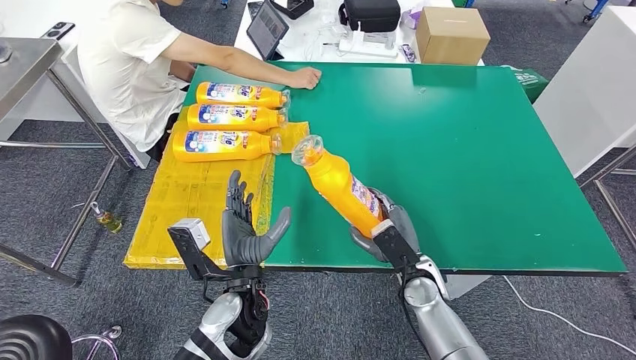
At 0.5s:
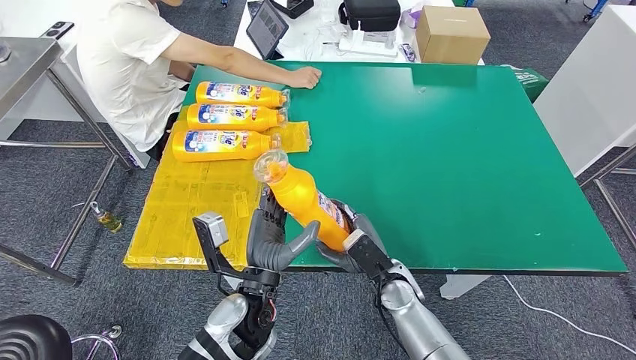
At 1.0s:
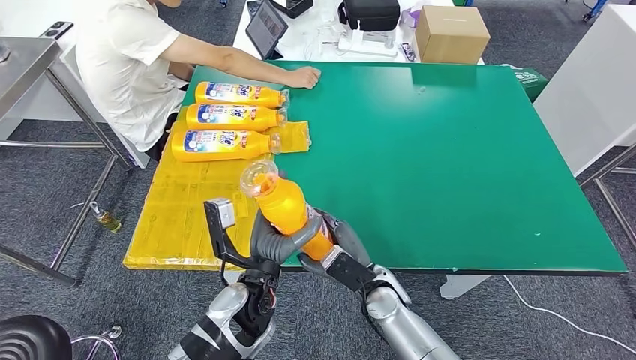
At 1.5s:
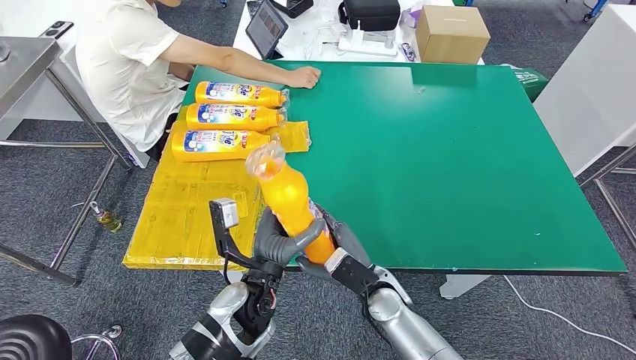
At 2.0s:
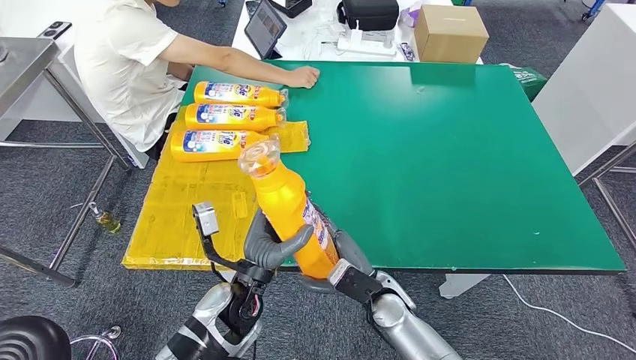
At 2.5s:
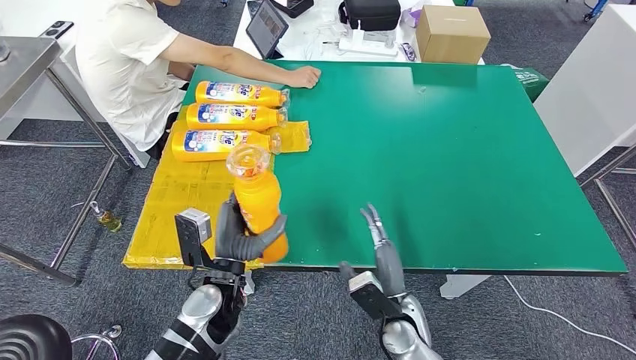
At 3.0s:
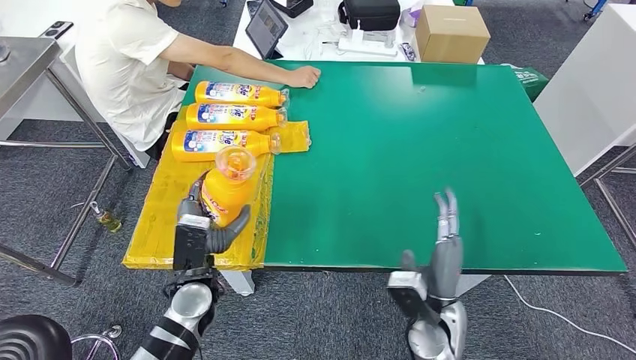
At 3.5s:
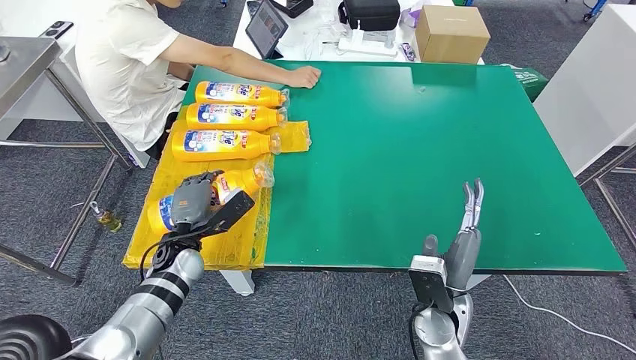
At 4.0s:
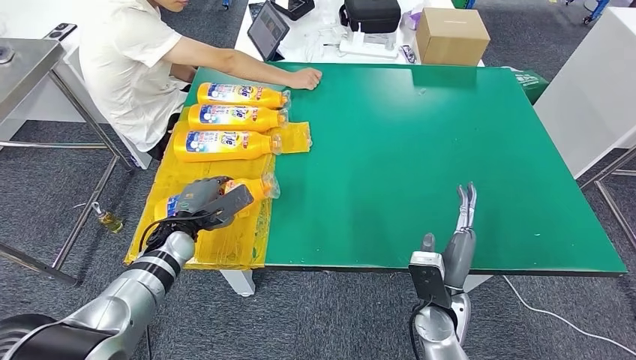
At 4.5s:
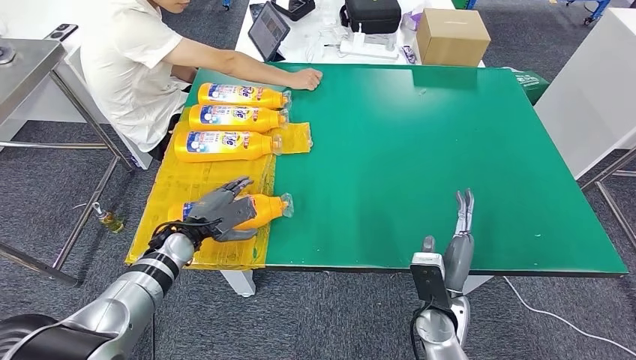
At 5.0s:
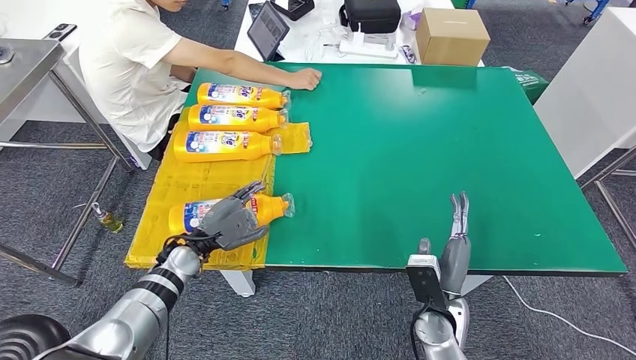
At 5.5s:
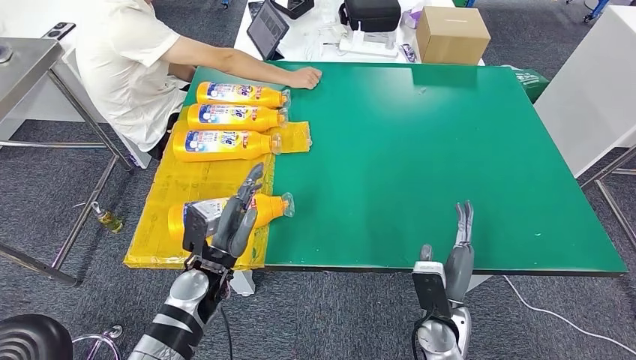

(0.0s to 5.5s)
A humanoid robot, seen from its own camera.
Step, 0.0s - 5.5s: Flip the fast-moving consumer goods bottle to the front side.
0.0s - 2.0s: The right hand shifts about 5 cm to the left.
2.0s - 3.5s: The right hand is displaced to the right and upward by approximately 10 cm; the left hand travels to the left and forward by approximately 15 cm.
3.5s - 5.5s: The left hand travels to the right and backward by roughly 10 cm.

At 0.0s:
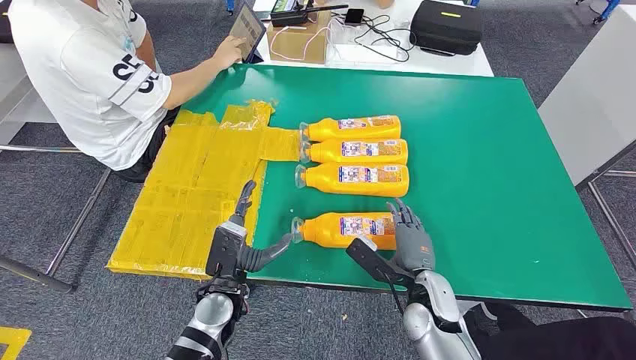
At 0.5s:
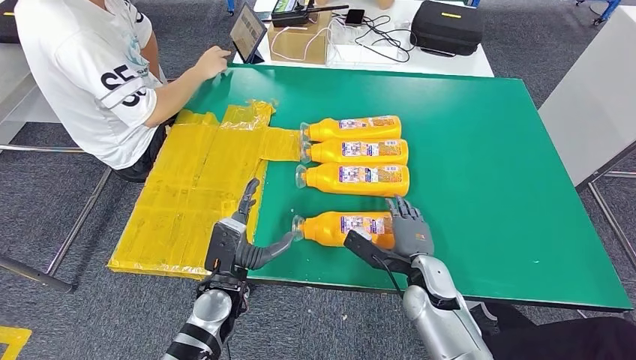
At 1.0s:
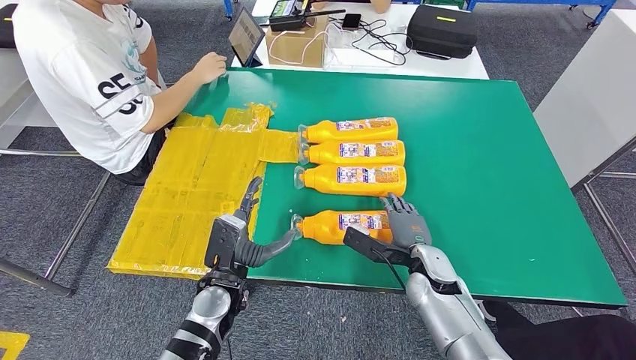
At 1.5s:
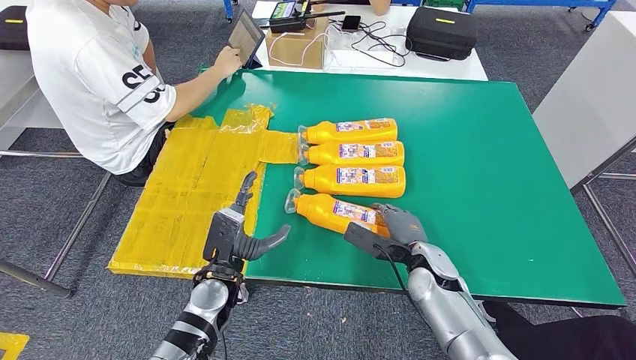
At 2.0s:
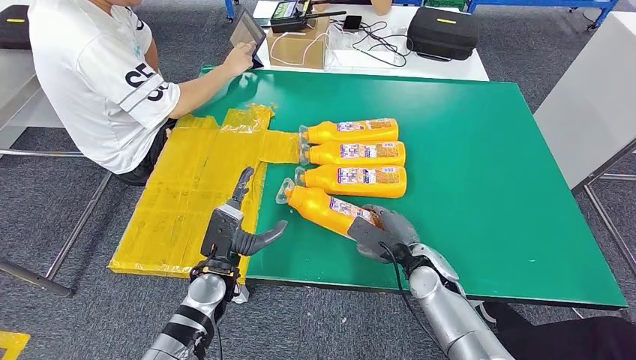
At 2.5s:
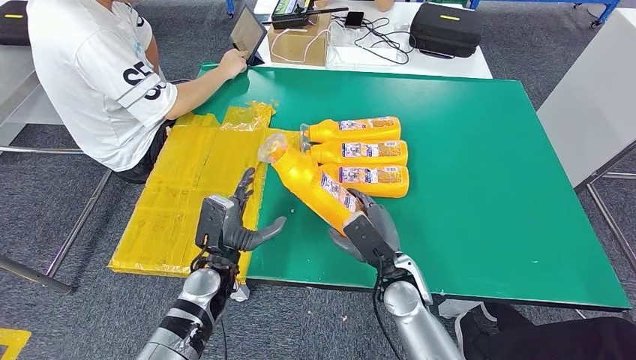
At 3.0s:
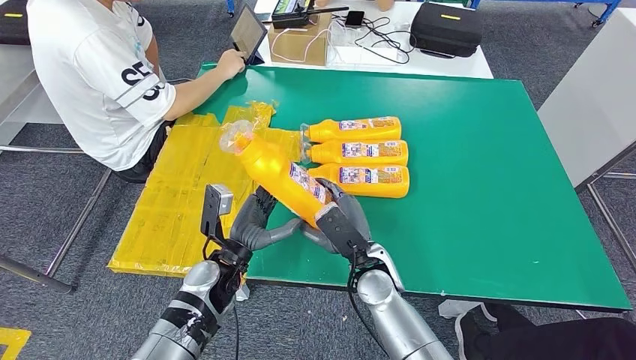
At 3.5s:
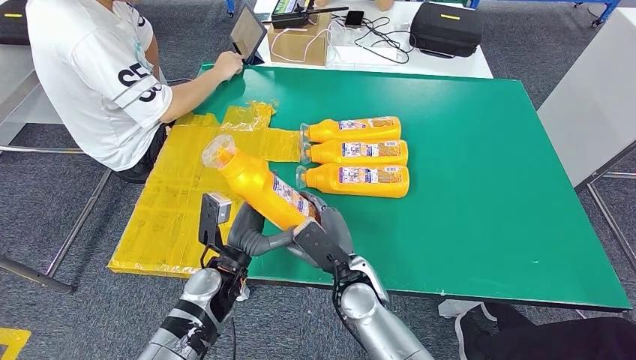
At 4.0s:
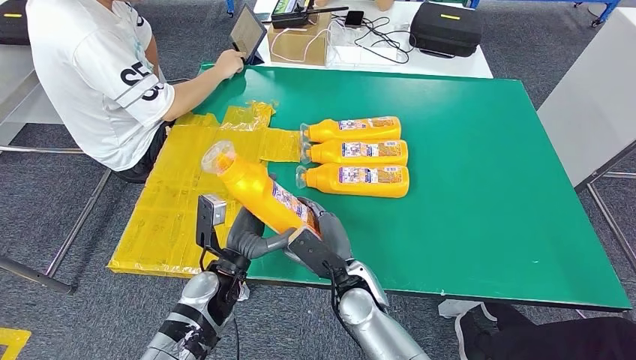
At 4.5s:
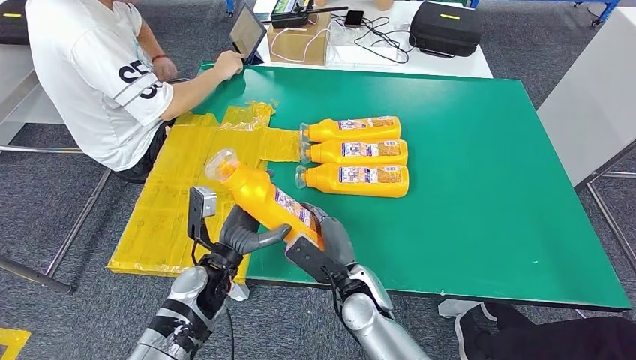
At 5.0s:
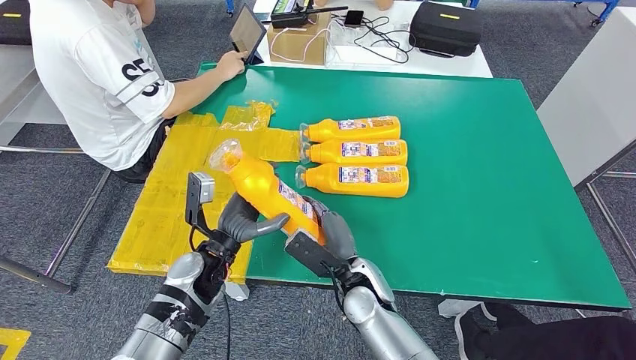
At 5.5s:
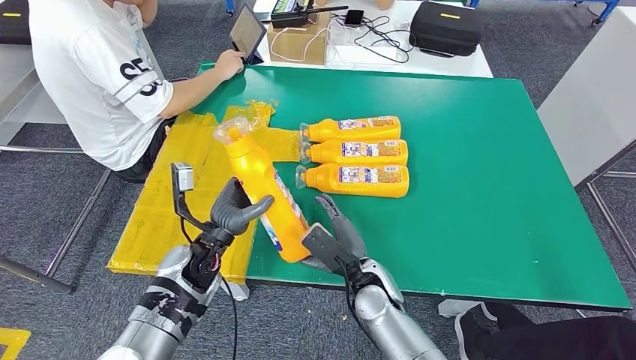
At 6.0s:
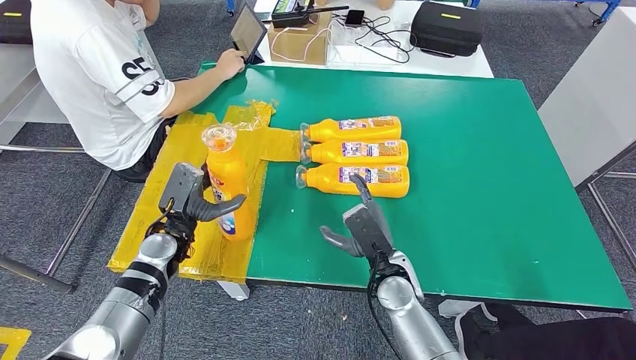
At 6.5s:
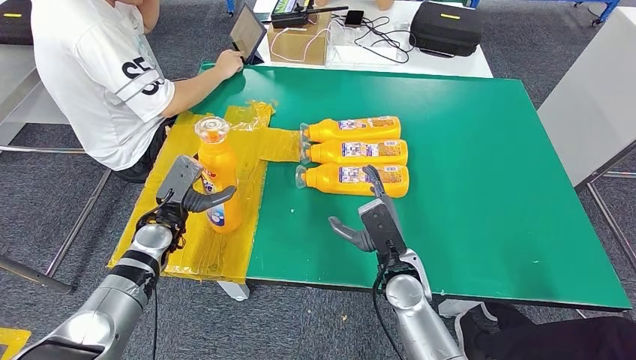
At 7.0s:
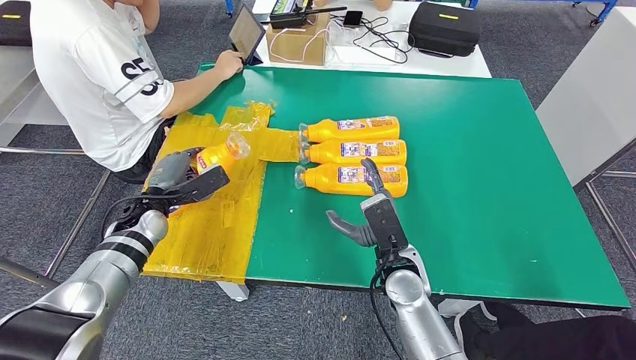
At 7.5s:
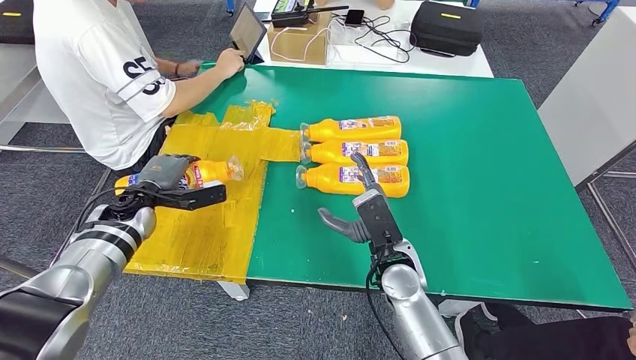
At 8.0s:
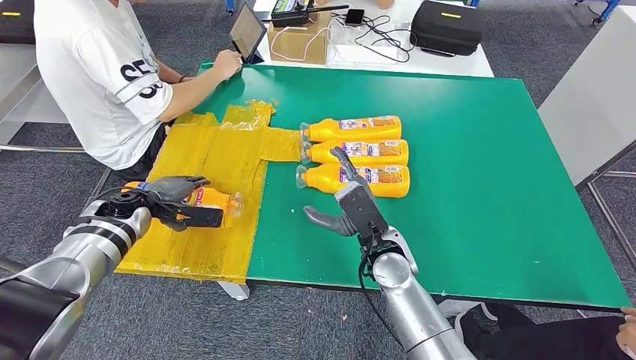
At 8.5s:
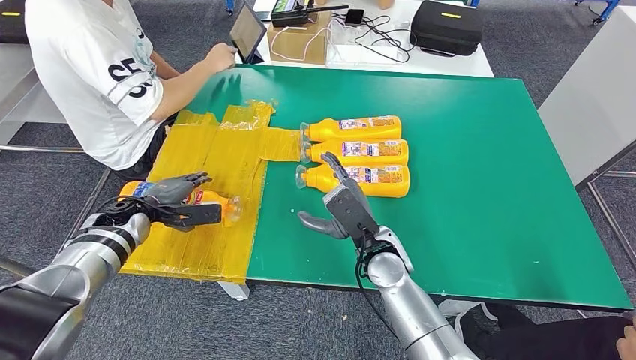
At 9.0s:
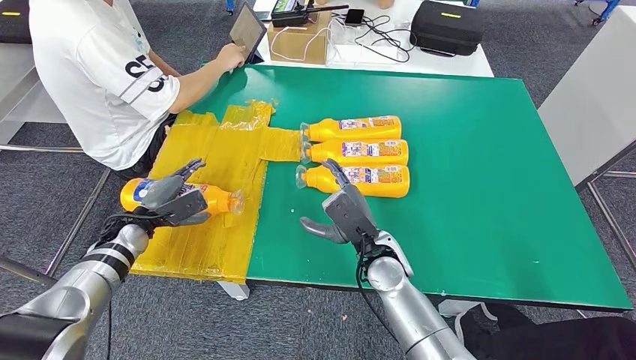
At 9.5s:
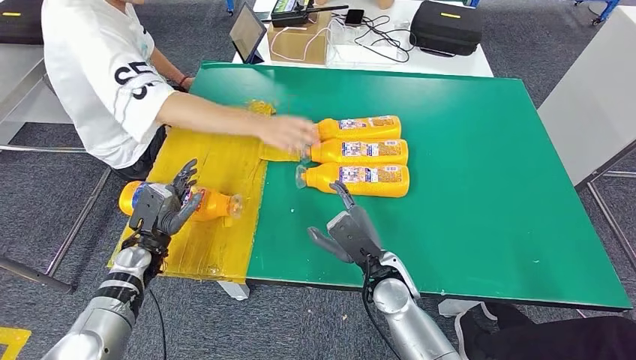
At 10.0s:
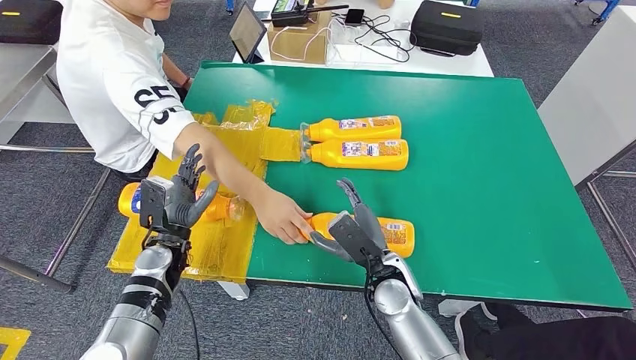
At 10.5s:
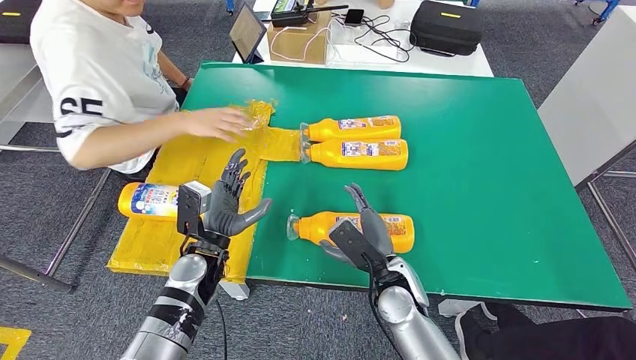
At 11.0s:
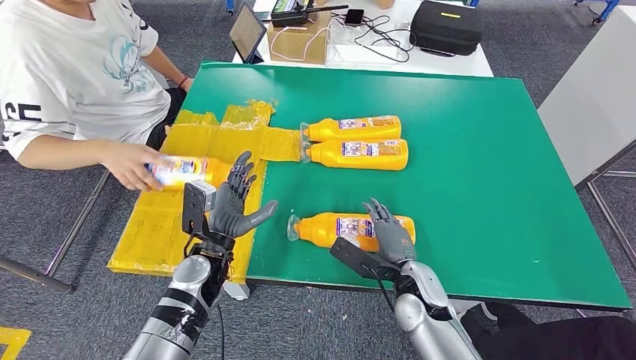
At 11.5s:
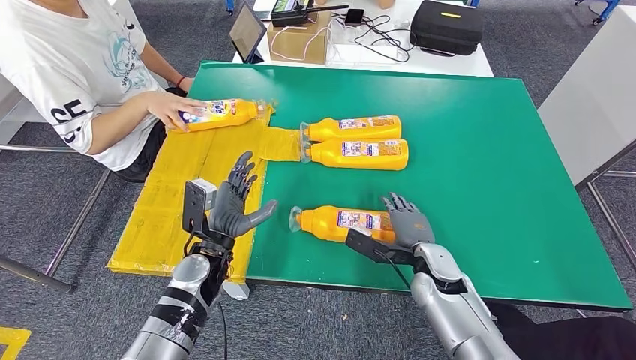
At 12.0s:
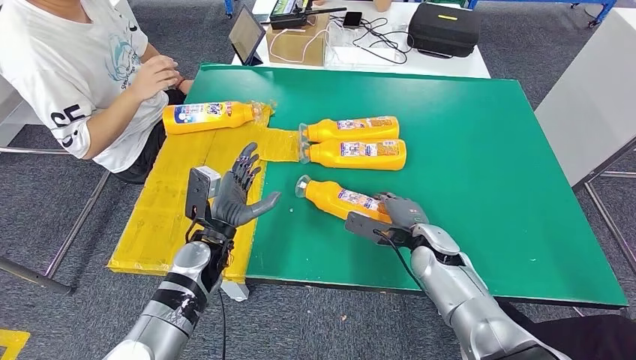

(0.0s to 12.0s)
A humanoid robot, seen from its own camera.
Step, 0.0s - 2.5s: Take the fast-moving consumer goods bottle from the table.
Step, 4.0s - 9.5s: Flip the fast-moving consumer goods bottle to the front side.
4.0s - 6.0s: The right hand is displaced to the right by about 5 cm. Meanwhile the left hand moves to the left and forward, some 15 cm.
6.0s - 8.0s: The left hand is displaced to the left and forward by roughly 10 cm, while the right hand shifts by approximately 5 cm.

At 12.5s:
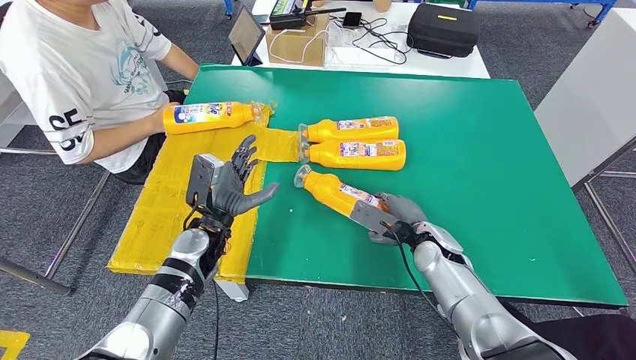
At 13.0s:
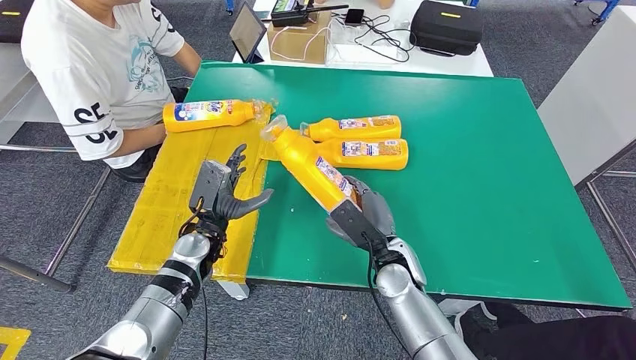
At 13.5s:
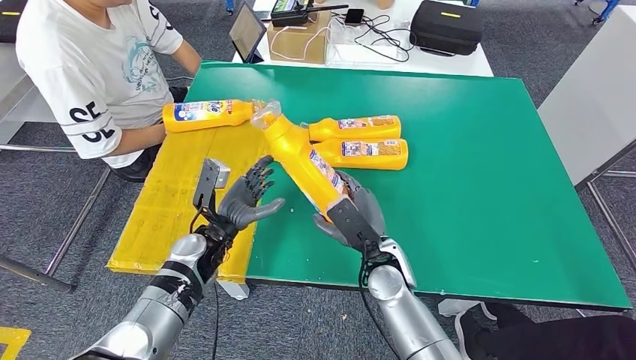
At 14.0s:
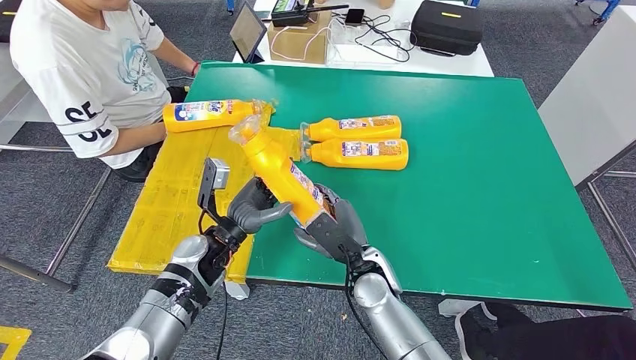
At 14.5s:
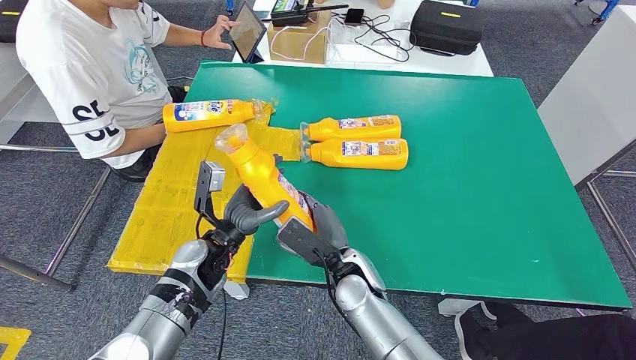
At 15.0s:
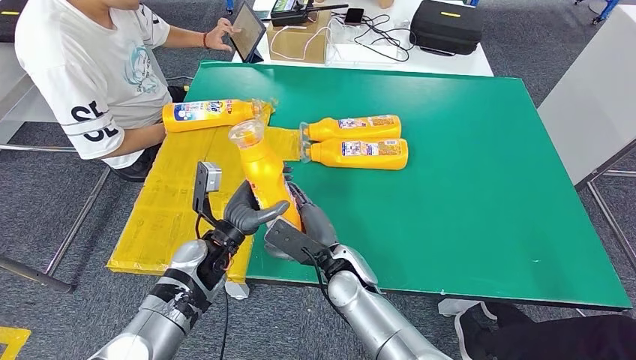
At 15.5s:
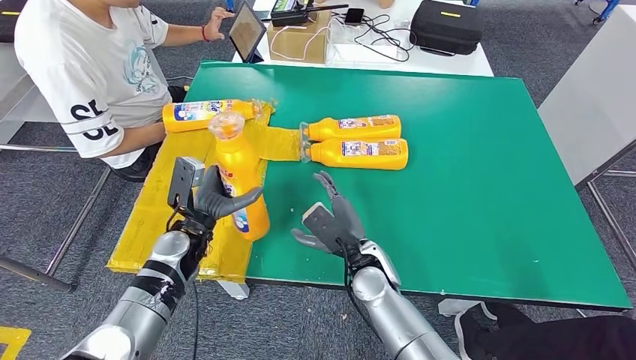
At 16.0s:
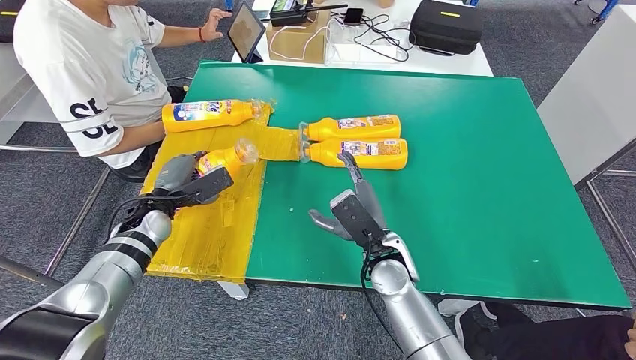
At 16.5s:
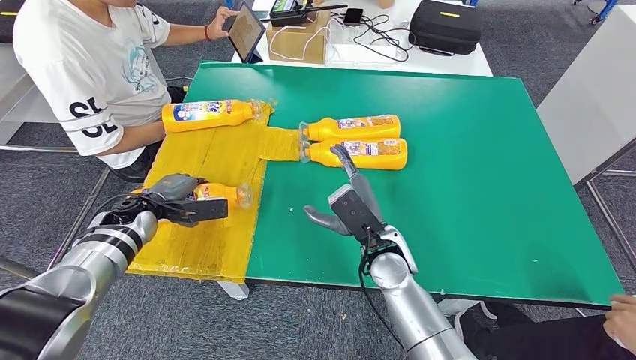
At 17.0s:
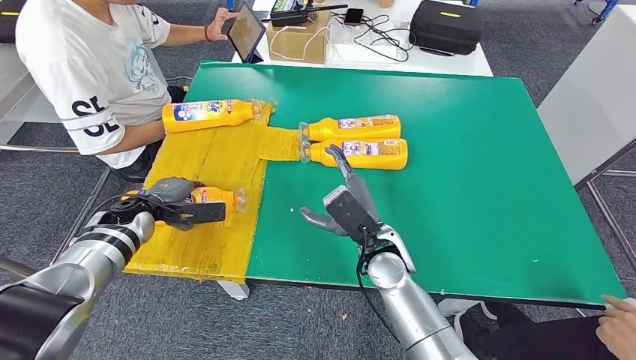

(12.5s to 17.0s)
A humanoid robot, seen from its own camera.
Step, 12.5s - 14.0s: Pick up the fast-moving consumer goods bottle from the table.
